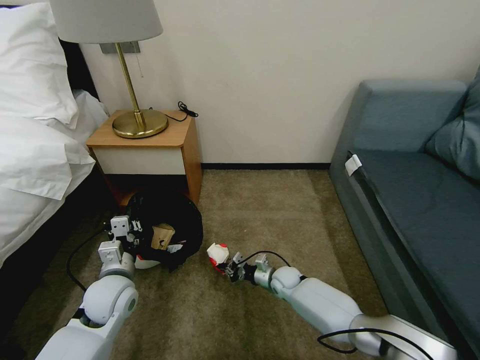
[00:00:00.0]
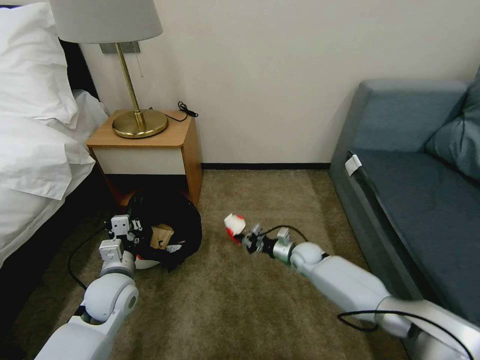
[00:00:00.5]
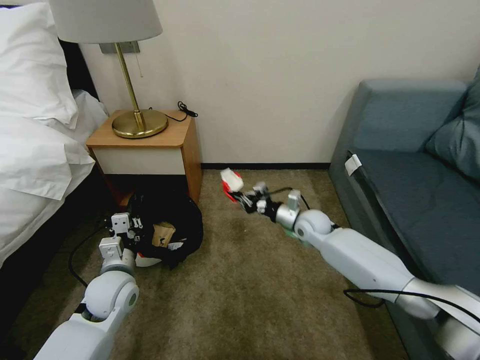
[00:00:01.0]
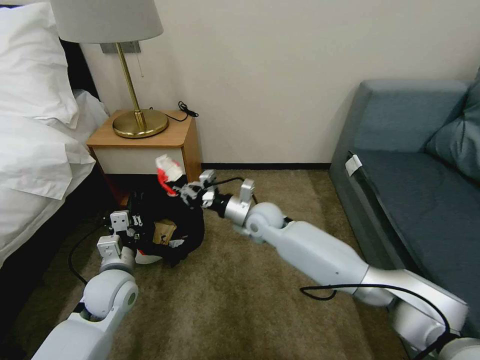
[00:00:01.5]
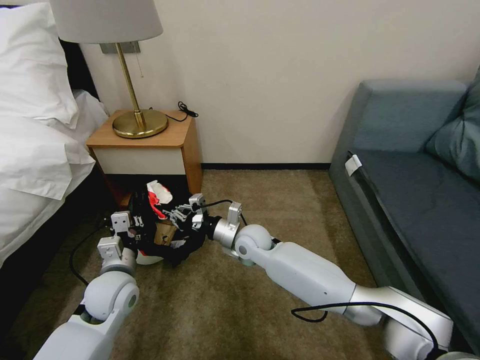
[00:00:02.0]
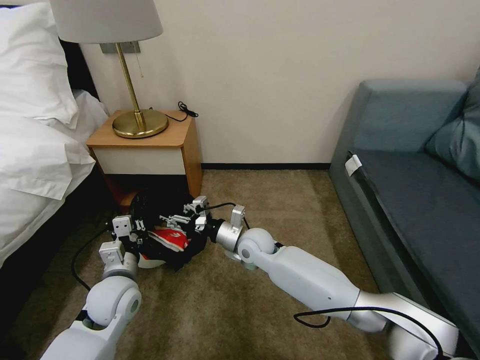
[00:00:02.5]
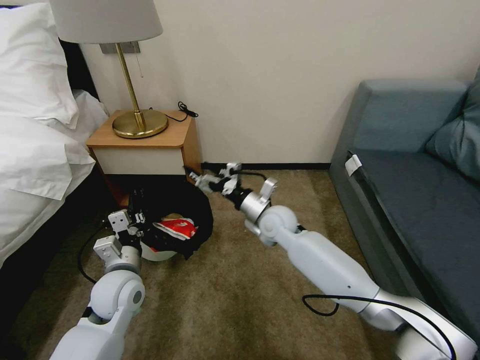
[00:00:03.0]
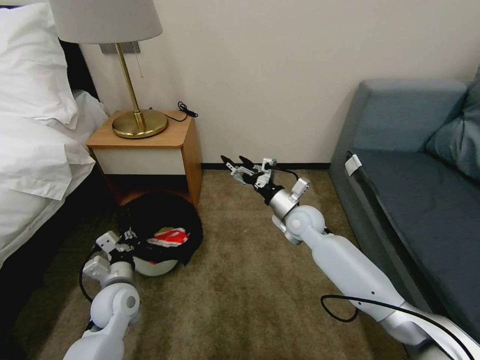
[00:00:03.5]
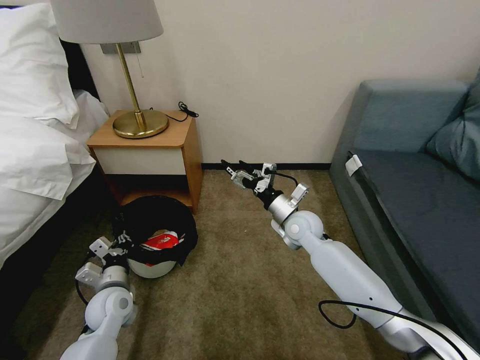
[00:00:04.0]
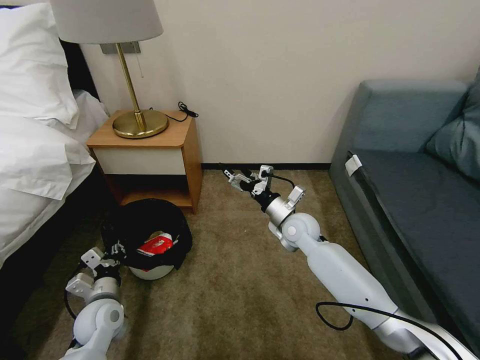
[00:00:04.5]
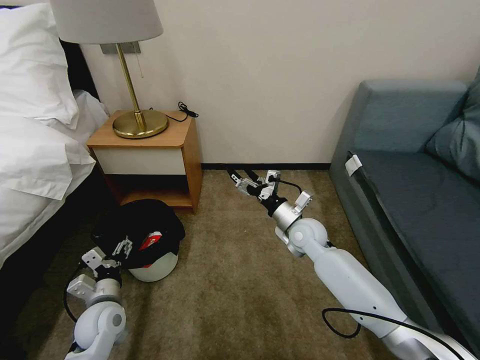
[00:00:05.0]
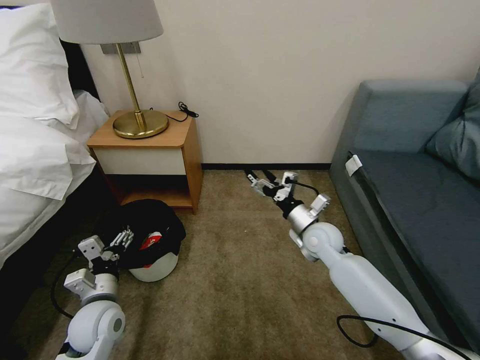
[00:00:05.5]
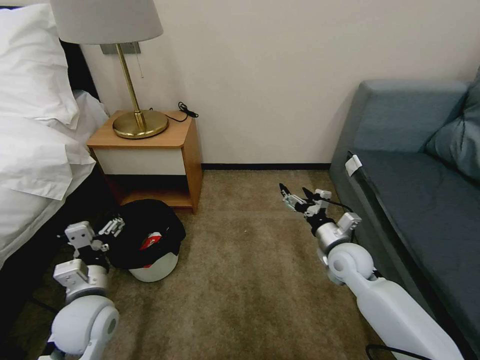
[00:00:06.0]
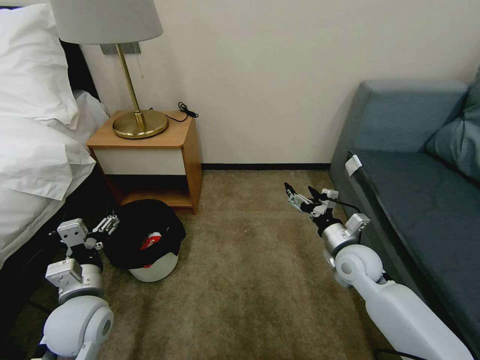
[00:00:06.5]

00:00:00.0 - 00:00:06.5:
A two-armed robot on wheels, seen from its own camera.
Task of the whole recording: Pick up the trash bin, then pick up the garbage on the floor and place it into the trash bin.
00:00:00.0 - 00:00:02.0: The right gripper shifts approximately 25 cm upward and to the left.
00:00:02.0 - 00:00:04.5: The left gripper goes roughly 10 cm downward and to the left; the right gripper is displaced to the right by about 15 cm, and opens up.
00:00:04.5 - 00:00:06.5: The left gripper shifts roughly 10 cm upward, and opens. Meanwhile the right gripper travels to the right and backward by approximately 15 cm.
